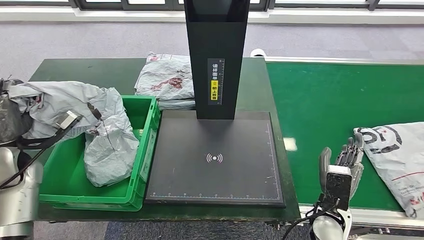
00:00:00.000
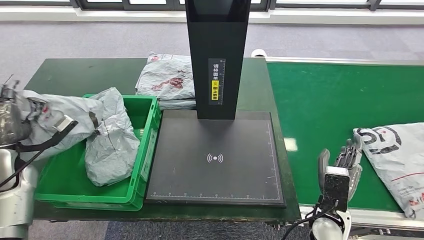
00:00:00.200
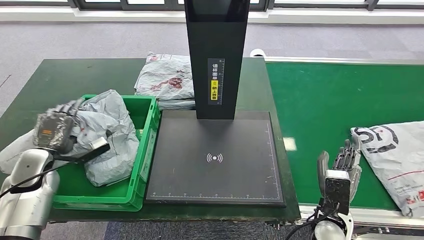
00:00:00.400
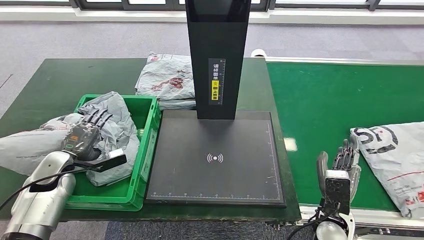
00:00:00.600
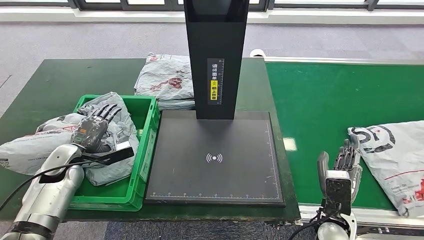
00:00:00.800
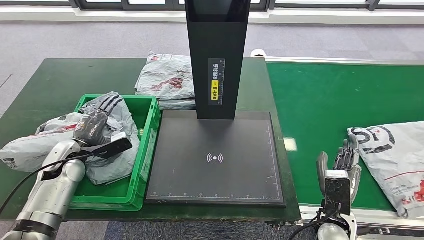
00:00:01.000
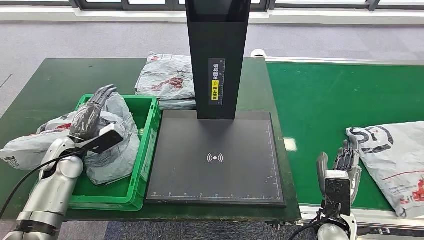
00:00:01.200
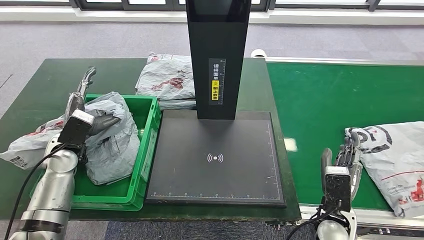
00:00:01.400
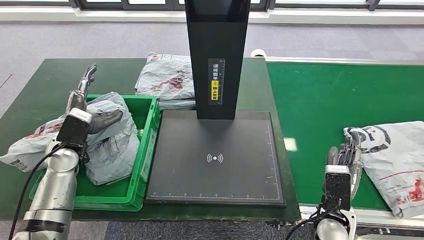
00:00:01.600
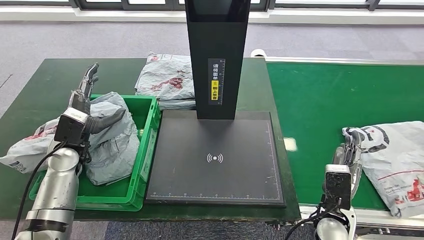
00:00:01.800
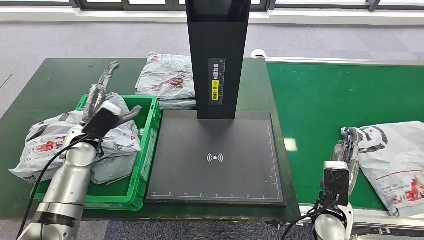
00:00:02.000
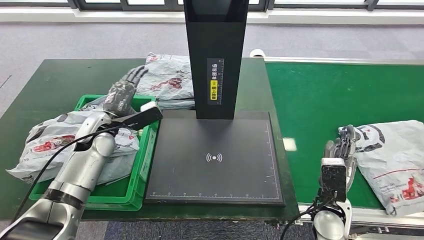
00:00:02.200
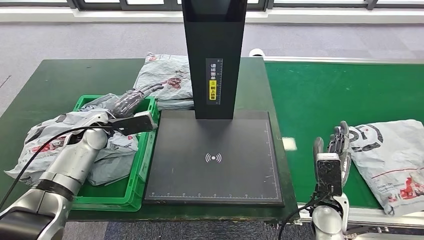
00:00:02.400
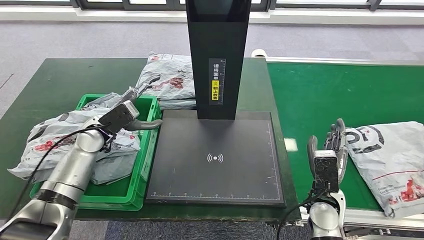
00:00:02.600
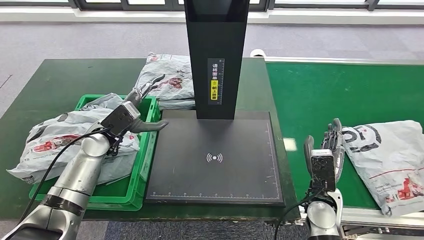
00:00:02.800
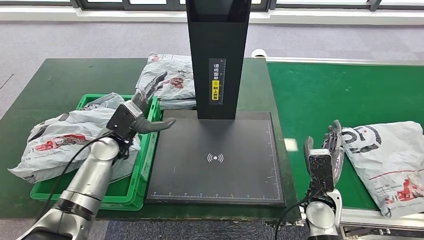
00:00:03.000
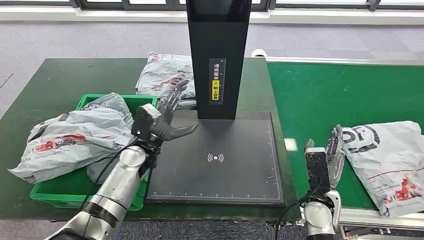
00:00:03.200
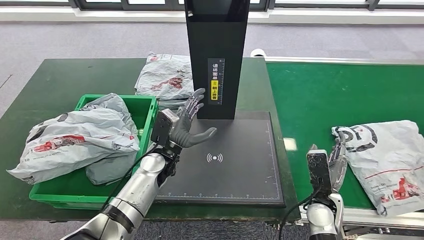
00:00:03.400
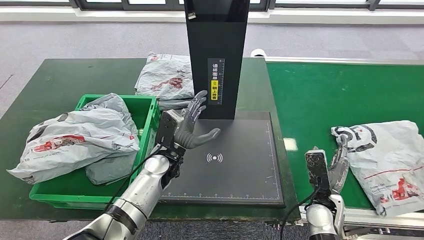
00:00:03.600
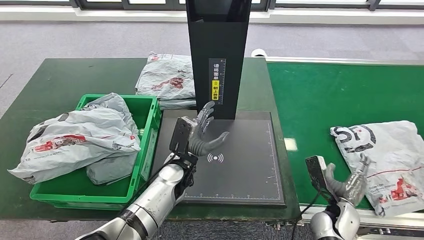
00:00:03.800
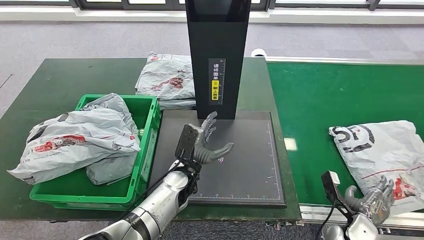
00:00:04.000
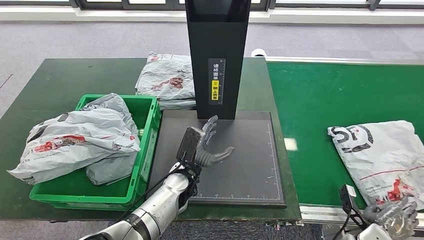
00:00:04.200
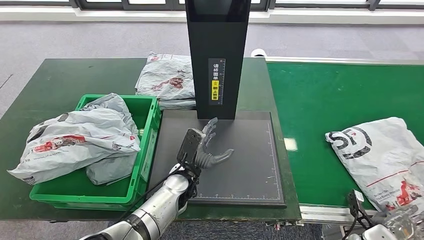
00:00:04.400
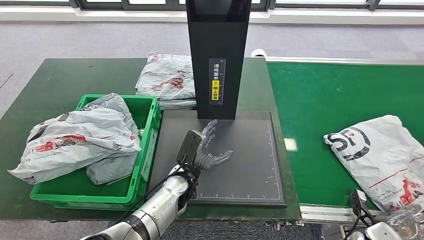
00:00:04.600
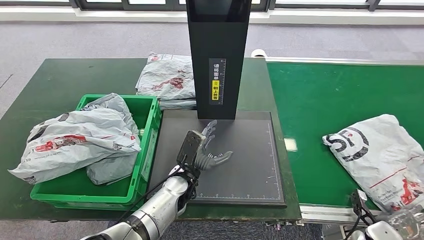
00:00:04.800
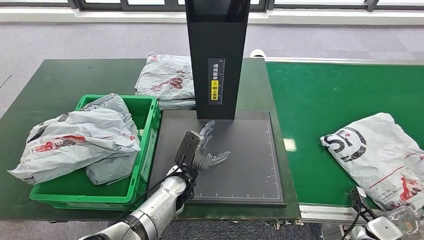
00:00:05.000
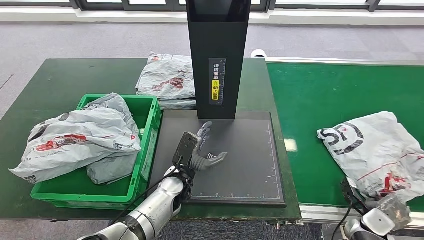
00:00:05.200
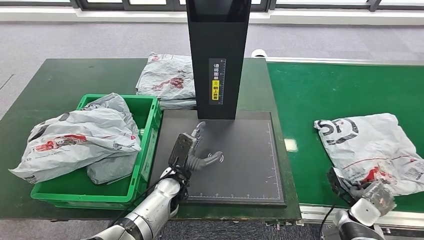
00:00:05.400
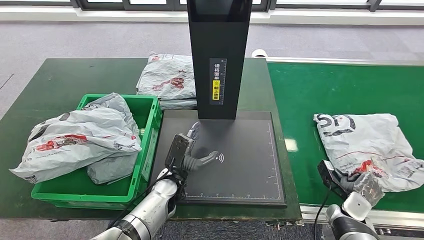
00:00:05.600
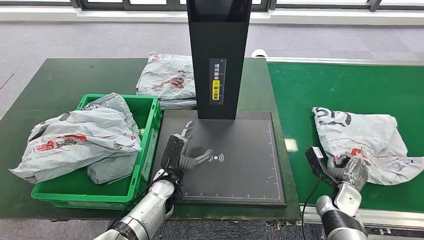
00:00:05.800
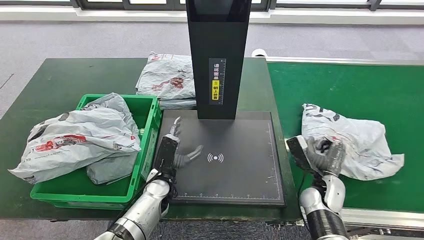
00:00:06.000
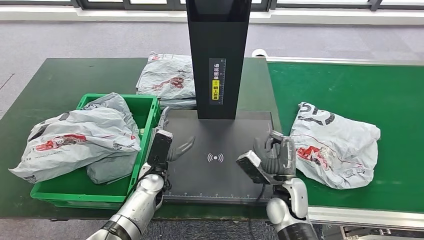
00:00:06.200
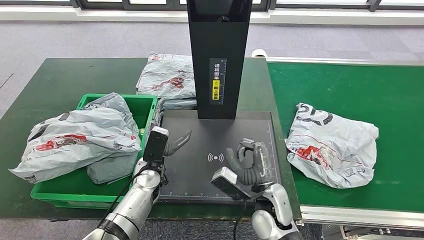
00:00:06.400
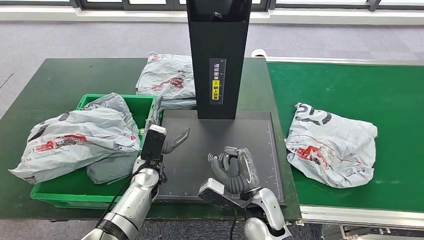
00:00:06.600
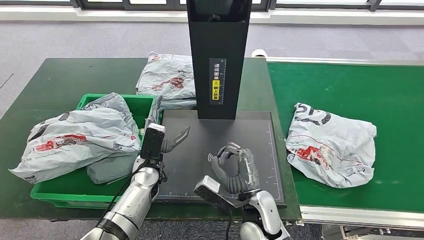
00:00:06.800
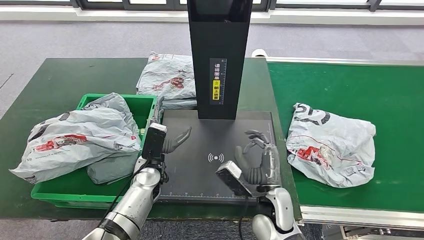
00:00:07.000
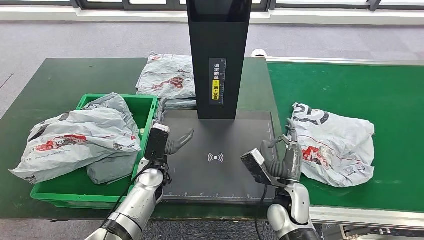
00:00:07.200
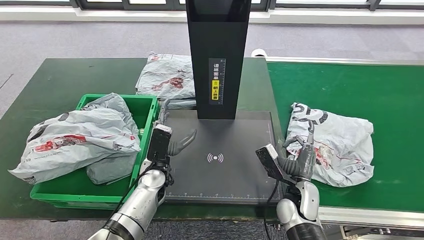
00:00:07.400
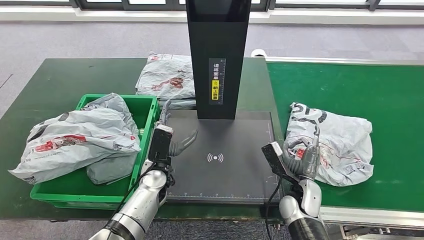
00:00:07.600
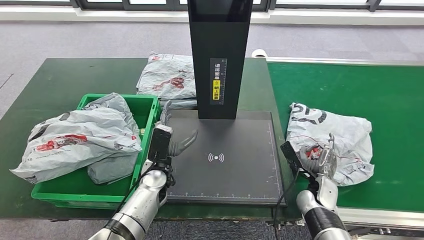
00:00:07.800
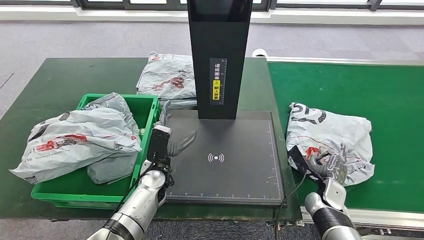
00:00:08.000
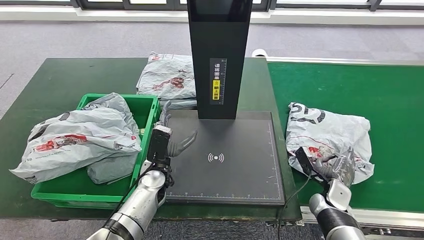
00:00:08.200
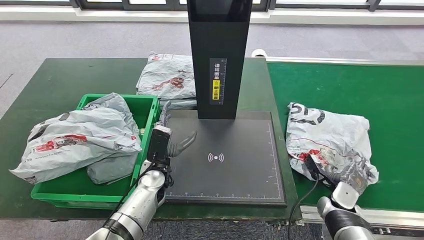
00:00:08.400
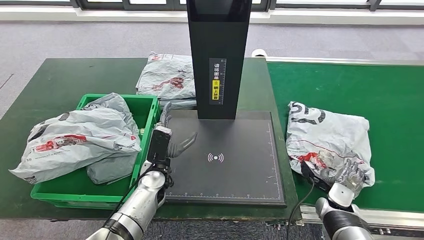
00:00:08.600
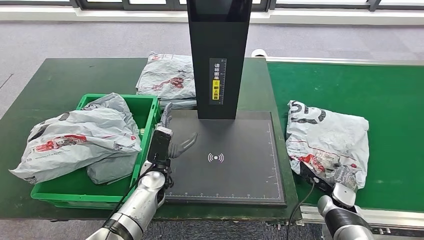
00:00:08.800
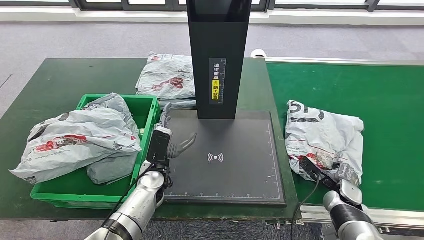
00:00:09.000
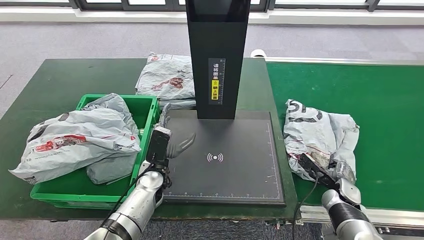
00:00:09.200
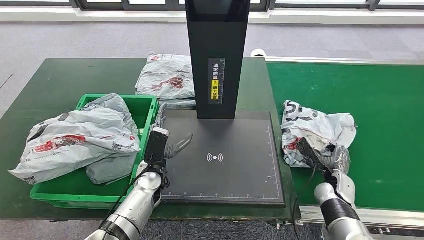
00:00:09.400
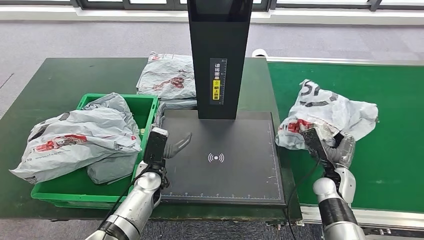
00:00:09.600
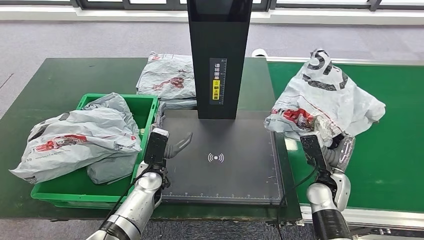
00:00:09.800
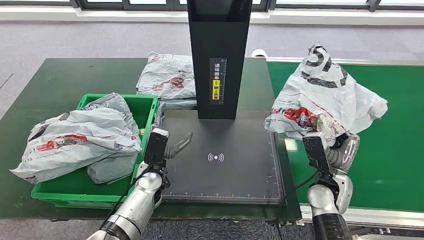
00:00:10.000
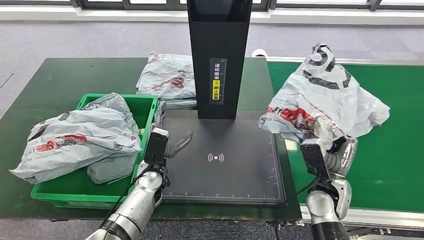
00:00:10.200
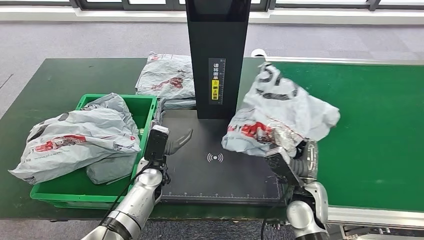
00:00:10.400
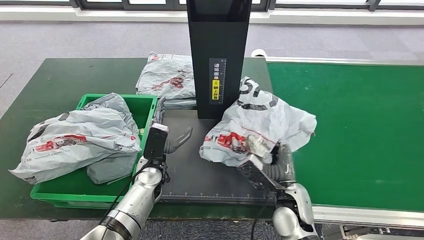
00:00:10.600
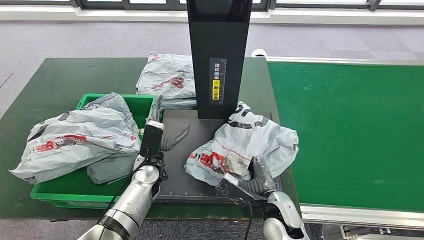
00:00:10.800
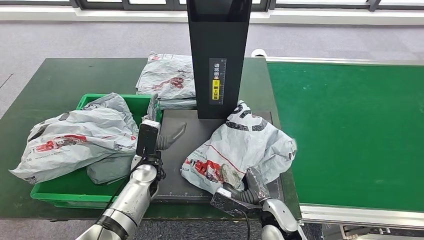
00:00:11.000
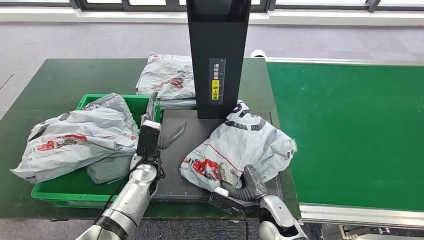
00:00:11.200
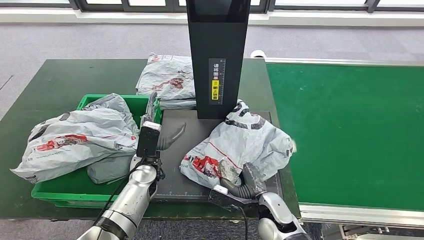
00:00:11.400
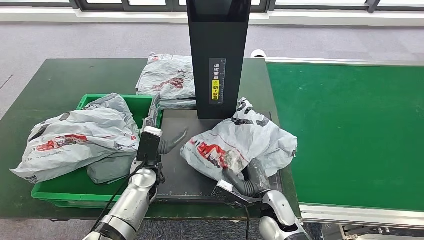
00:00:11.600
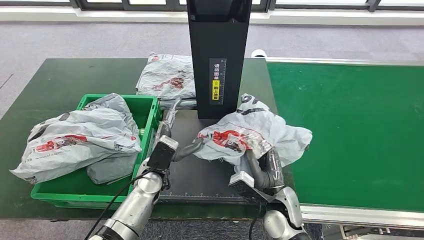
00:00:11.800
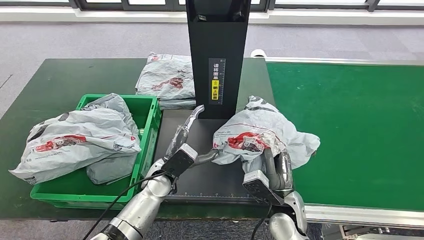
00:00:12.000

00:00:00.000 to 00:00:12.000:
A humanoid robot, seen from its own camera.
Step, 00:00:00.000 to 00:00:02.000: Place the parcel into the delivery box.
Step, 00:00:07.400 to 00:00:10.200: Pick up the parcel from the conveyor belt.
00:00:00.000 to 00:00:01.600: The left hand heads to the right, covering approximately 10 cm.
00:00:04.400 to 00:00:06.000: The left hand shifts some 5 cm to the left. Meanwhile the right hand travels to the left, forward and upward by about 20 cm.
00:00:06.000 to 00:00:07.600: The right hand goes to the left and returns, approximately 20 cm each way.
00:00:07.600 to 00:00:09.000: The right hand goes some 15 cm to the right.
00:00:10.400 to 00:00:12.000: The right hand goes about 5 cm to the left.

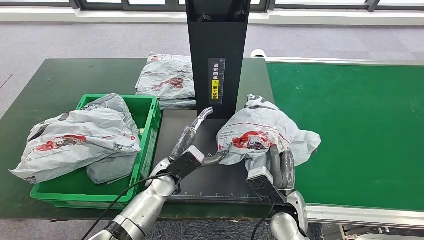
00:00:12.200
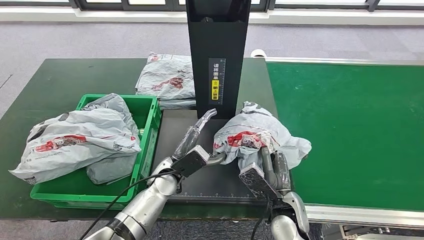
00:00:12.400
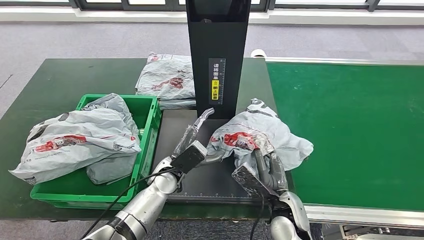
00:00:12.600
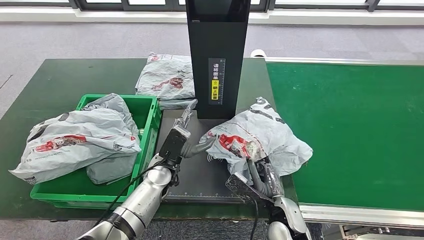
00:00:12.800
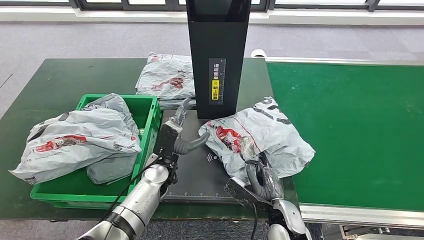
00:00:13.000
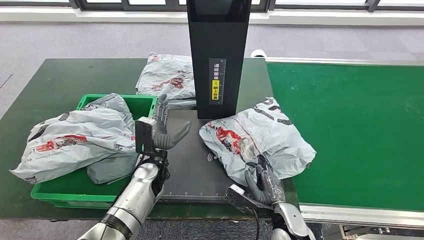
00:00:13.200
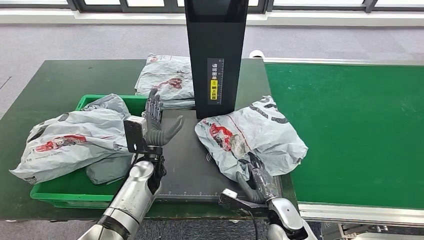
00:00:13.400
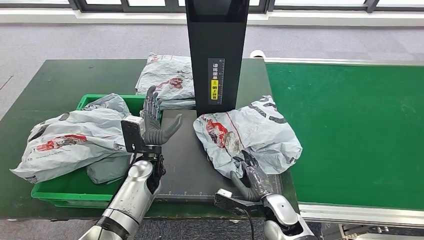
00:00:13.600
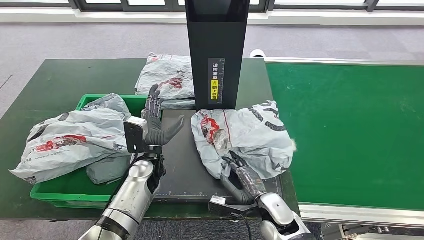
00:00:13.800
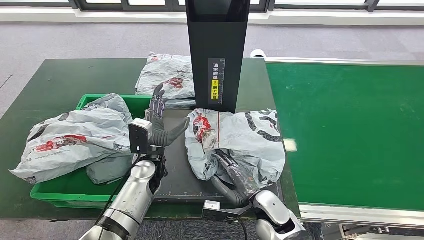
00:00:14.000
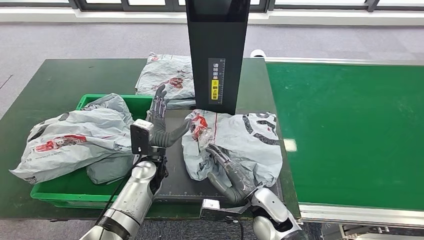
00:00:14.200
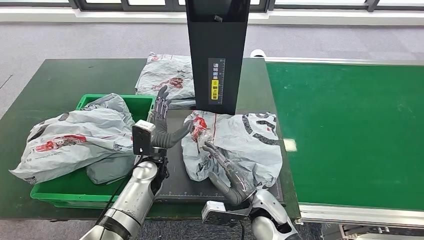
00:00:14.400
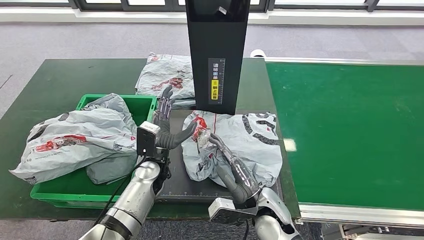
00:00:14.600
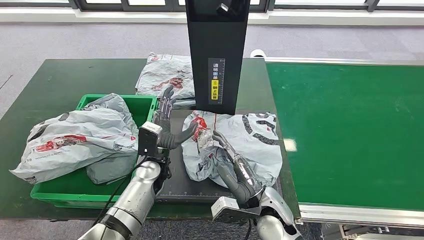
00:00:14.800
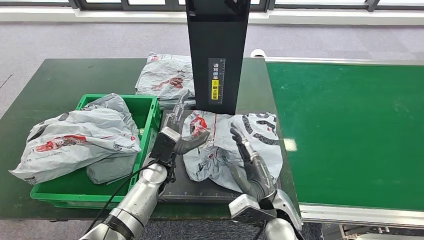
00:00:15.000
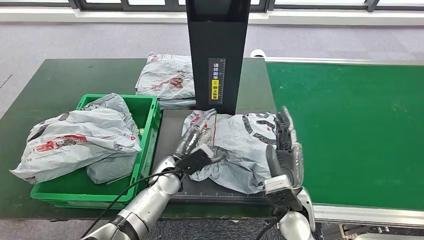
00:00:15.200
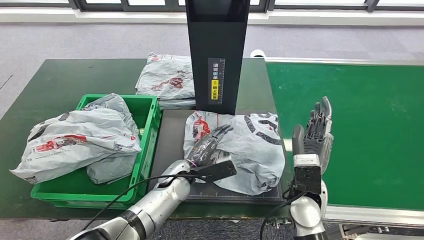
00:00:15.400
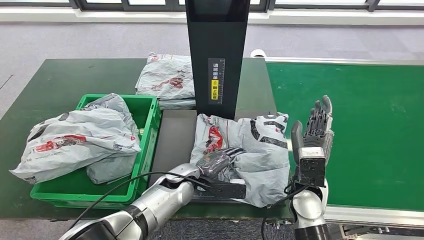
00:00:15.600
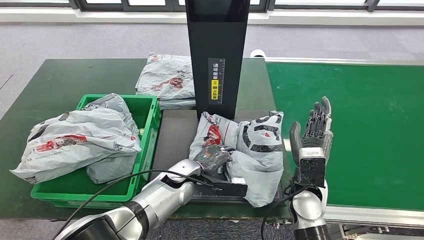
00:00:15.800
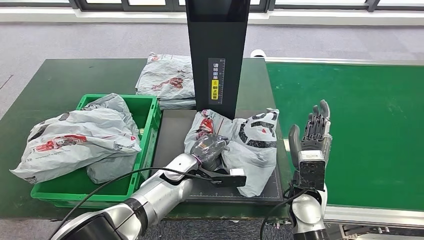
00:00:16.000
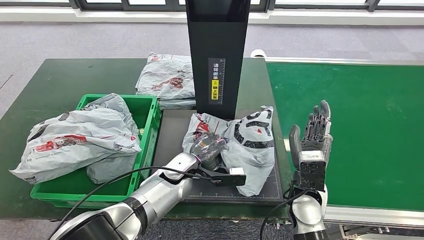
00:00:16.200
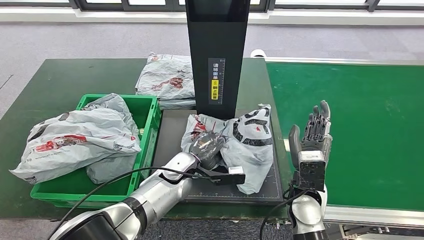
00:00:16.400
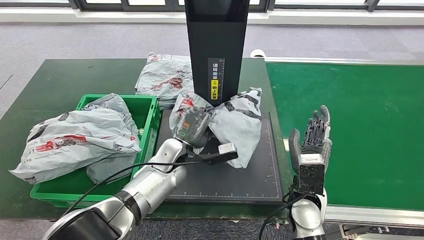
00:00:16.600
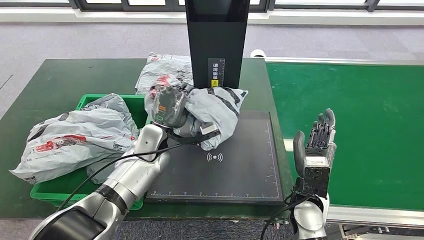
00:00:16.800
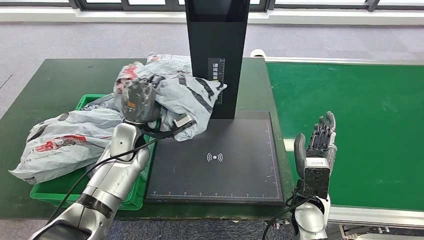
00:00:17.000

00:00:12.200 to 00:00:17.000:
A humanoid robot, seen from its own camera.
Step, 00:00:12.200 to 00:00:14.800: Place the parcel onto the inbound machine.
Step, 00:00:15.000 to 00:00:16.800: Pick up the parcel from the inbound machine.
00:00:12.200 to 00:00:13.800: The right hand heads downward, covering approximately 5 cm, while the left hand ends up approximately 5 cm from where it was.
00:00:13.800 to 00:00:15.400: The right hand shifts about 10 cm upward. Meanwhile the left hand goes some 5 cm to the right.
